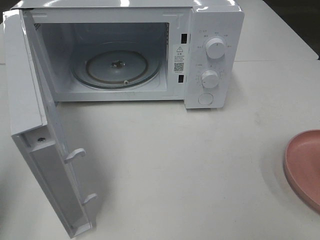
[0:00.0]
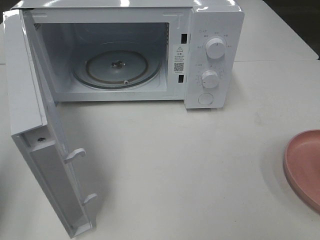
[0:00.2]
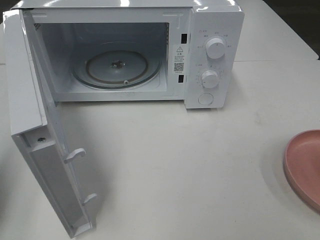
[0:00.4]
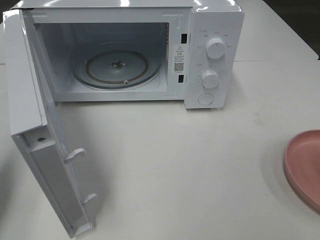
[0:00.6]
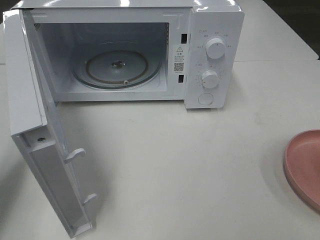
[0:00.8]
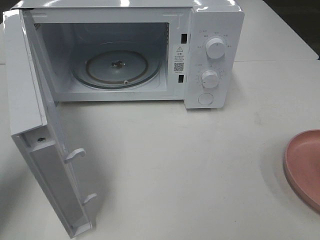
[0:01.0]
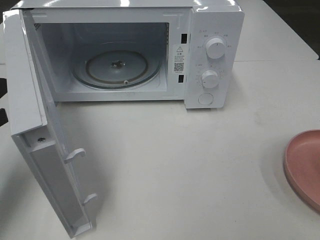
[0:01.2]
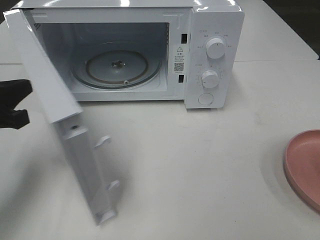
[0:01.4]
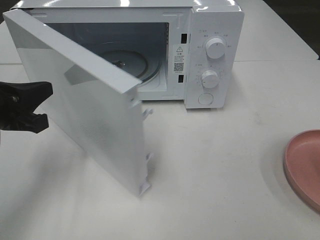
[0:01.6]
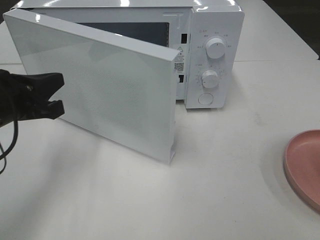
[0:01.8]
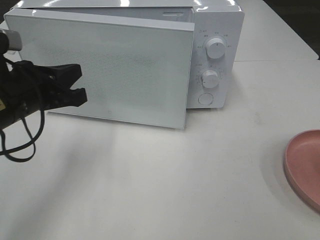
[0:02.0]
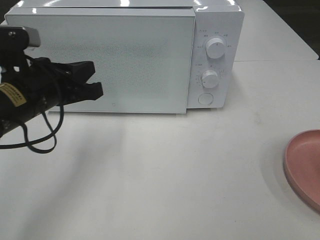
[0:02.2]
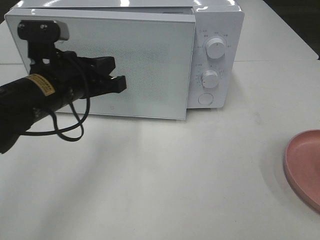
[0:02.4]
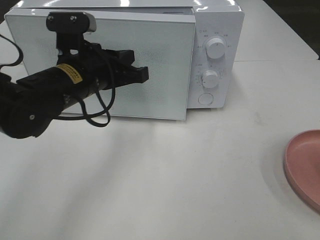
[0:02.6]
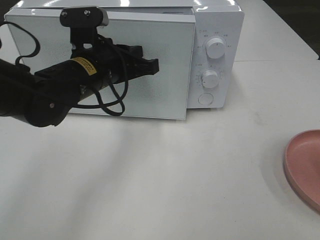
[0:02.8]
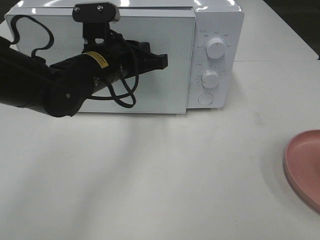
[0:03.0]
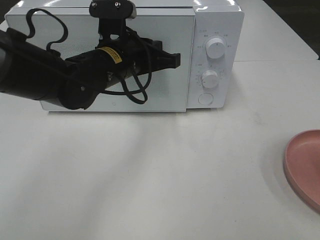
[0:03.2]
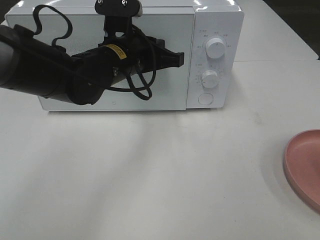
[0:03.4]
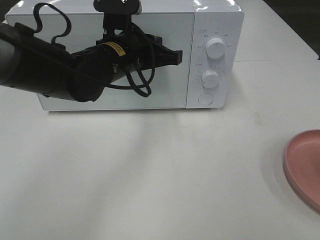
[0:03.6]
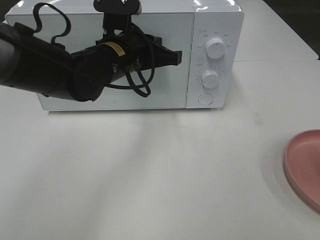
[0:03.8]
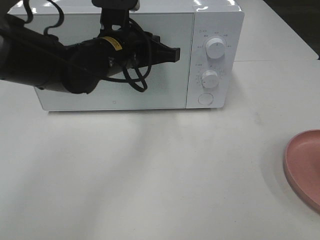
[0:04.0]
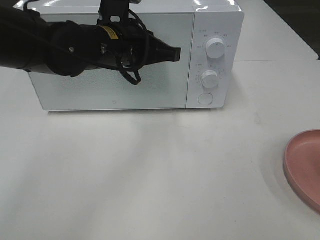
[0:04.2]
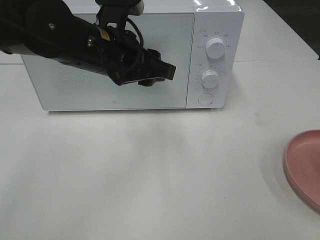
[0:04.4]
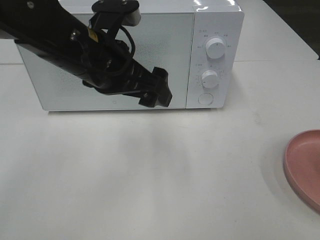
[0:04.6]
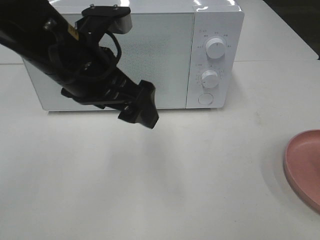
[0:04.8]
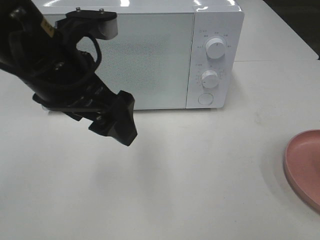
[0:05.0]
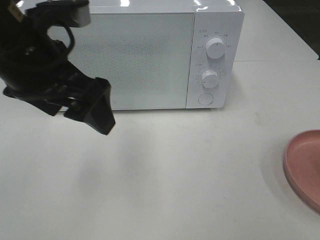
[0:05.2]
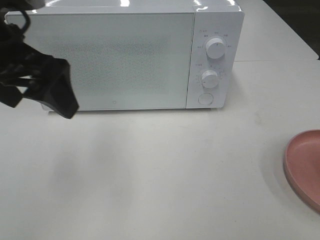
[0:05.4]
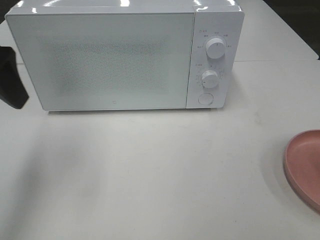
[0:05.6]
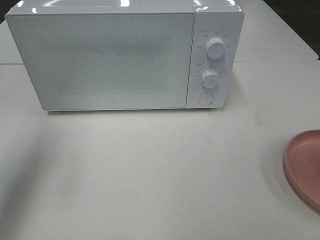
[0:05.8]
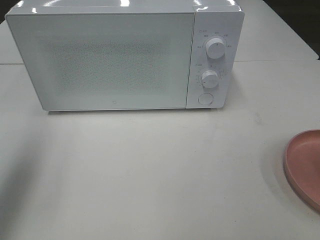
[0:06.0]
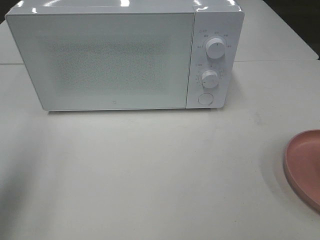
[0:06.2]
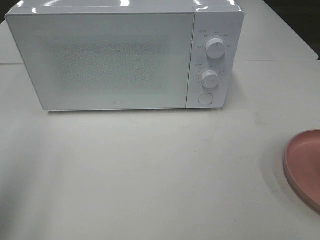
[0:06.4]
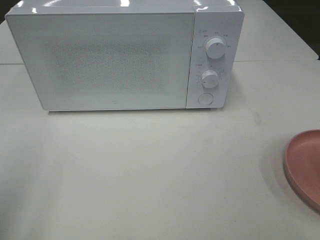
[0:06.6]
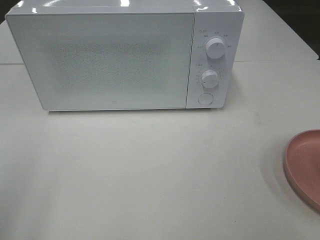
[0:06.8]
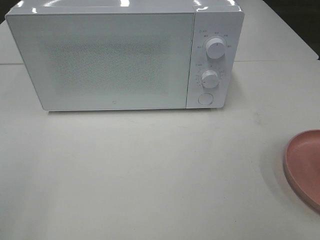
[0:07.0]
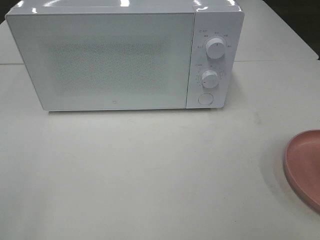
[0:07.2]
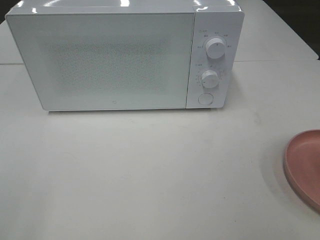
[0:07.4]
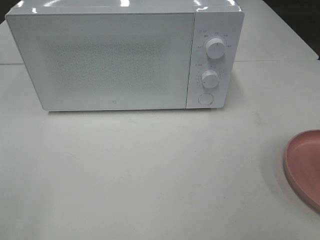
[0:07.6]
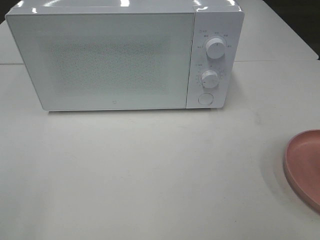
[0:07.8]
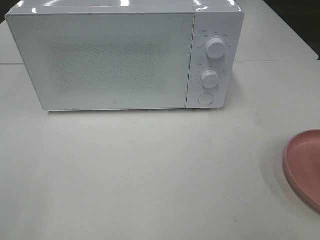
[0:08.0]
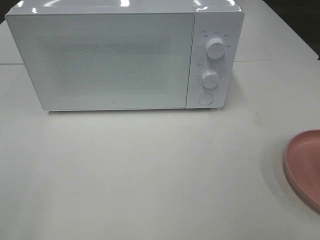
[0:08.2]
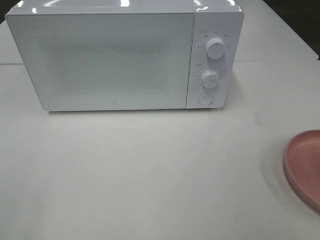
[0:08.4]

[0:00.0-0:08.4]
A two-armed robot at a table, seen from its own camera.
Task of the whole recording: Heat the burger.
Step, 0.0 to 4.0 s: Left hand: close the microwave door.
0.0 to 1.4 s: The left gripper shifts roughly 15 cm forward, downward and to the right.
1.4 to 2.8 s: The left gripper shifts about 20 cm to the right and forward.
4.2 to 5.6 s: The left gripper shifts roughly 20 cm to the left, upward and backward, and opens.
5.6 to 7.0 s: The left gripper travels backward by roughly 20 cm.

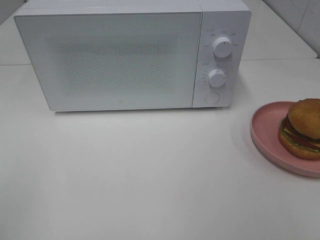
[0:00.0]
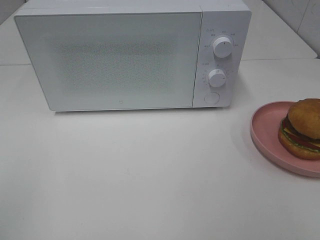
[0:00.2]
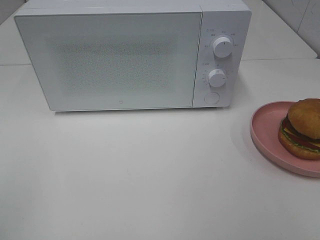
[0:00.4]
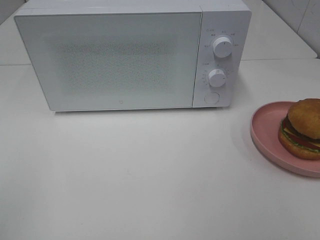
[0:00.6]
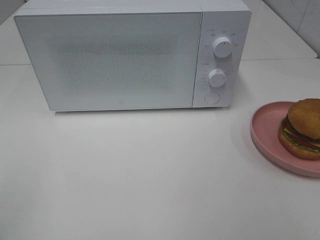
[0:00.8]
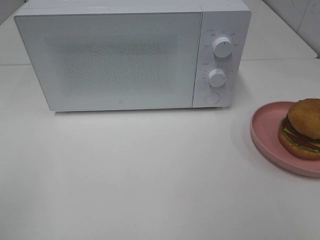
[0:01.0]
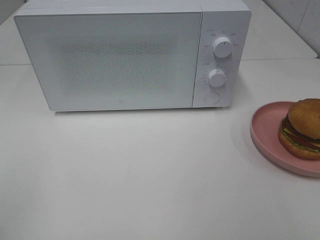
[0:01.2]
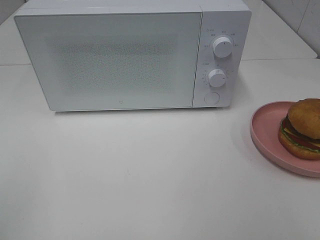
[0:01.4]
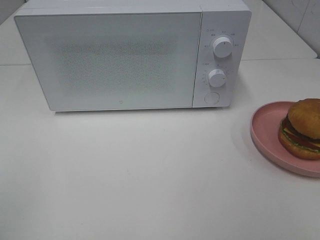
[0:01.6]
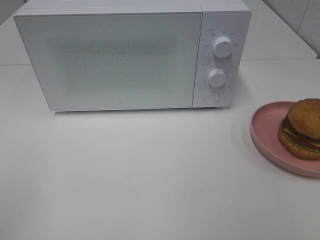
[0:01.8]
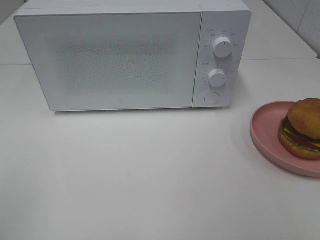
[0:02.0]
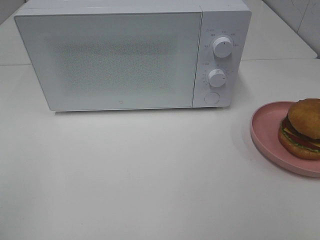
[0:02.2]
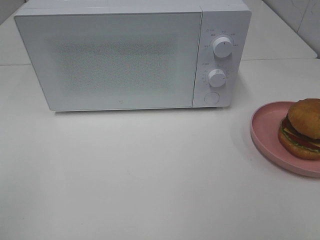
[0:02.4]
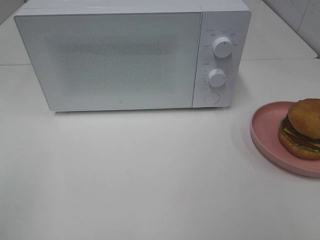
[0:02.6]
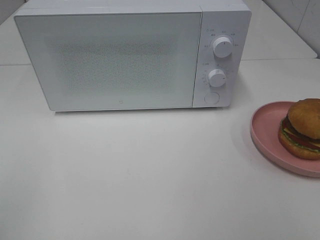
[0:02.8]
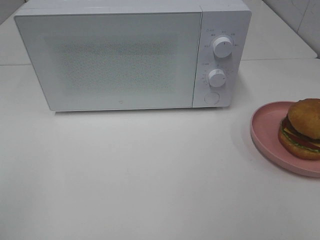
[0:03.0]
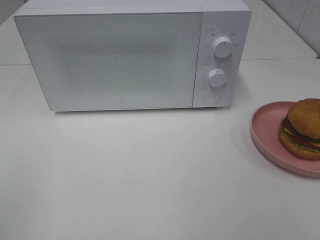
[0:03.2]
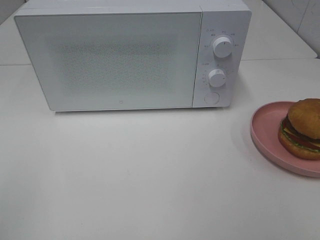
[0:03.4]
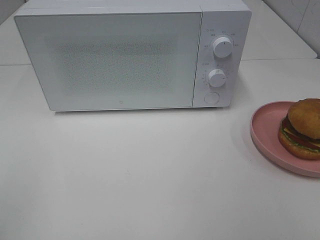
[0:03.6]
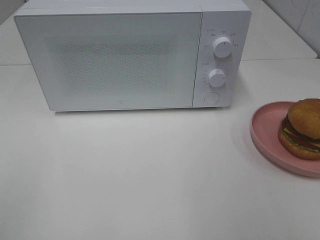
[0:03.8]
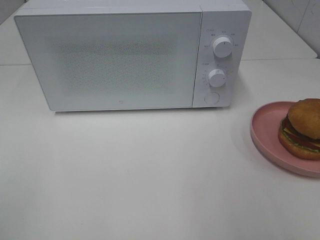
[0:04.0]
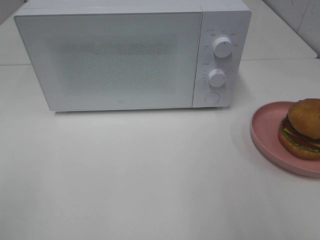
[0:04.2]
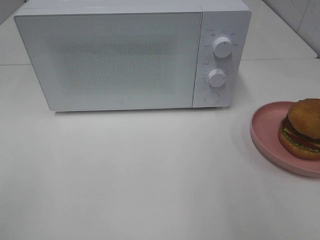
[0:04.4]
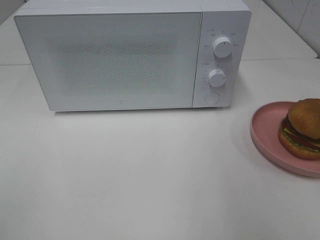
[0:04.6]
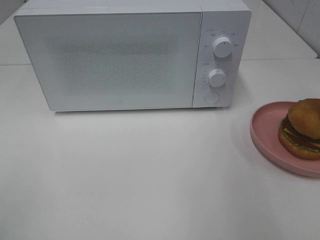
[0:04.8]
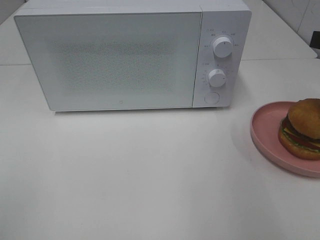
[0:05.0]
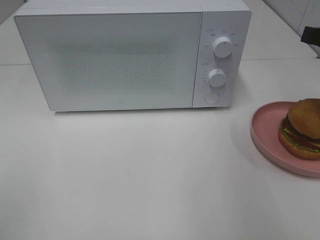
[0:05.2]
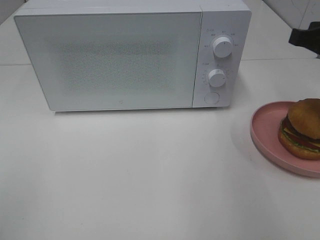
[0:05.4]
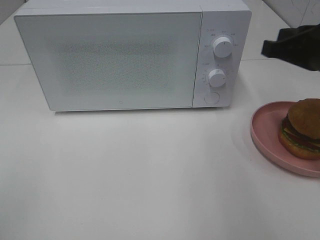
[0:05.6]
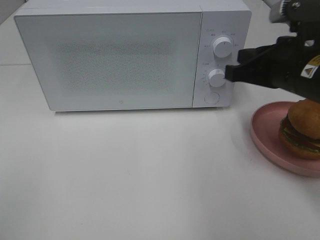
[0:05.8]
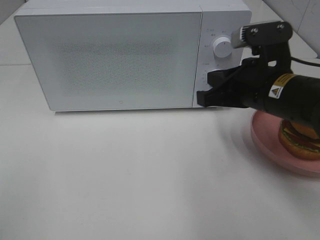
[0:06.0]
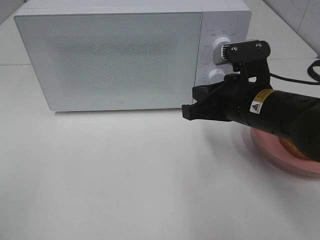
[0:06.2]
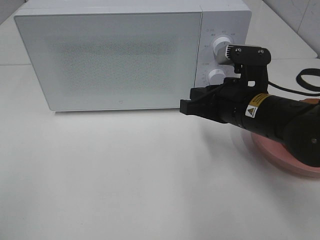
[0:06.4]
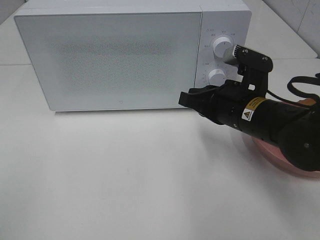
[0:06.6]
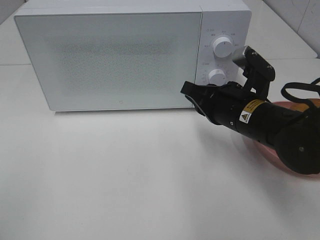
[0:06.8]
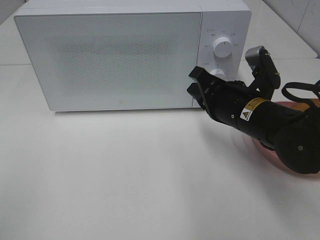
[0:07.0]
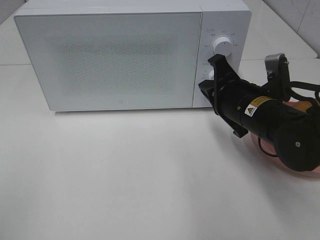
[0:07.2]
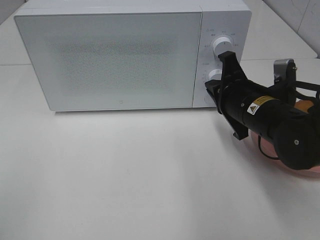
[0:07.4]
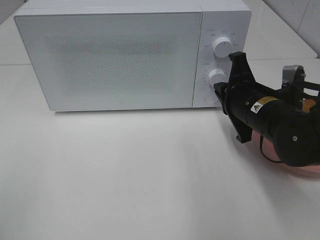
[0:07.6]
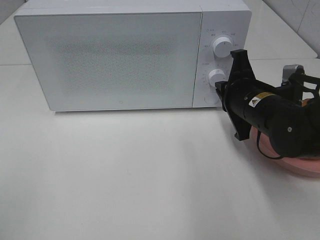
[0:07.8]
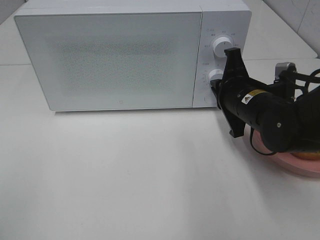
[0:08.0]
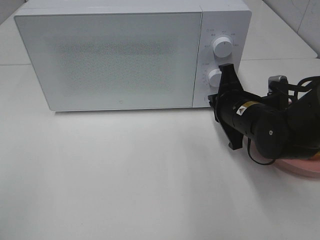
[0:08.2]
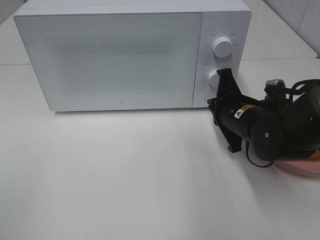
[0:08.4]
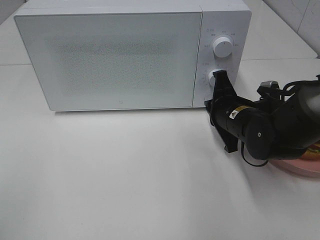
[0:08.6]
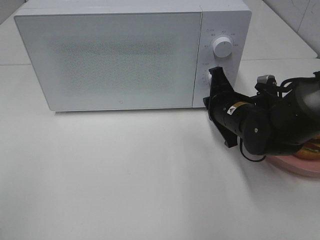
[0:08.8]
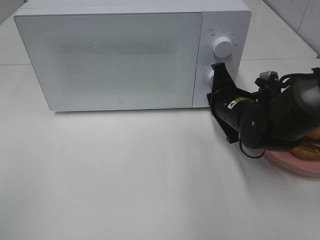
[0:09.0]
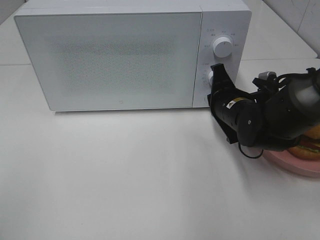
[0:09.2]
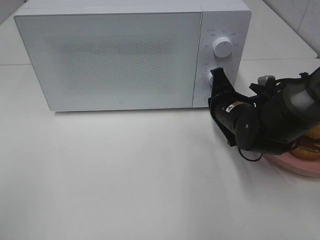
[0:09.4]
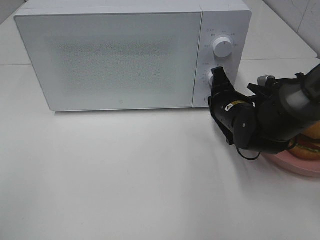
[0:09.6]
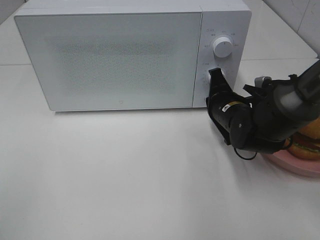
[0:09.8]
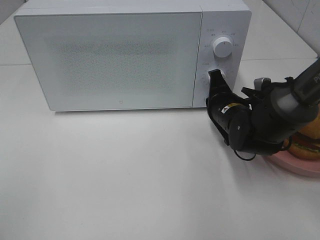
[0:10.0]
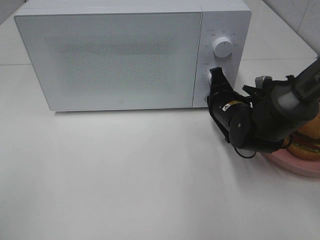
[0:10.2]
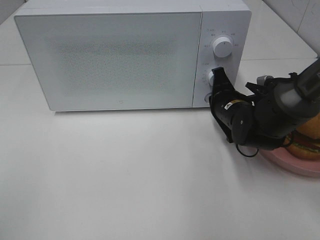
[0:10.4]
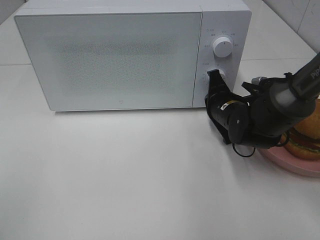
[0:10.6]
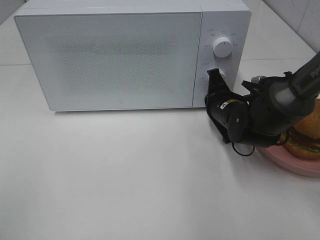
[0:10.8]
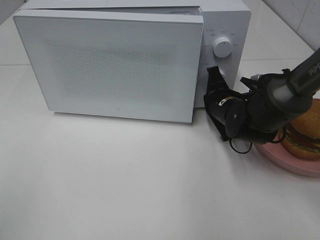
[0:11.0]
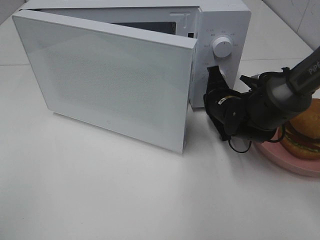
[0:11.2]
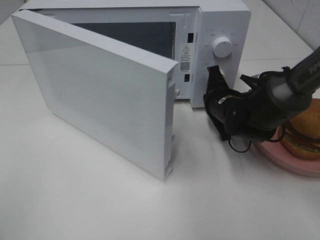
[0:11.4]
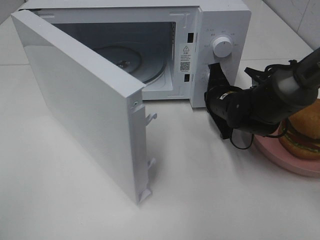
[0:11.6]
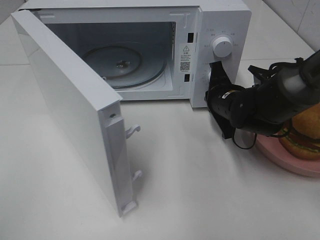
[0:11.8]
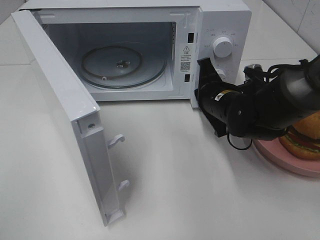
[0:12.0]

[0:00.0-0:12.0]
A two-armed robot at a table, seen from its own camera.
Task of the whole recording: Heat the burger.
Step, 0.0 to 11.8 s: Right hand: press the switch.
0.0 to 3.0 s: The two grippers keep their place.
4.4 to 6.0 s: The right gripper goes roughly 20 cm to the left, downward and forward, and closes.
6.0 to 7.6 s: The right gripper changes place by about 5 cm.
7.6 to 9.0 s: The right gripper changes place by about 5 cm.
9.0 to 10.4 s: The grippers stay close to where they were, moving slightly.

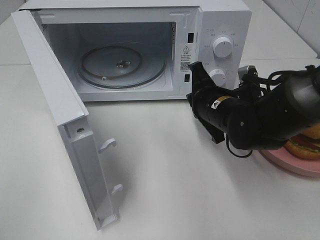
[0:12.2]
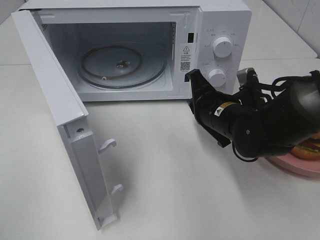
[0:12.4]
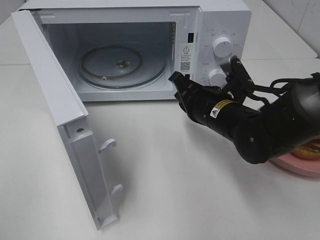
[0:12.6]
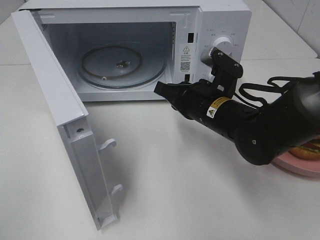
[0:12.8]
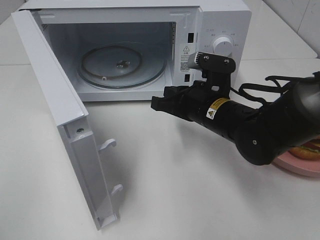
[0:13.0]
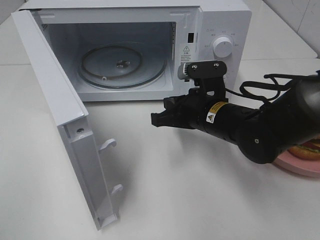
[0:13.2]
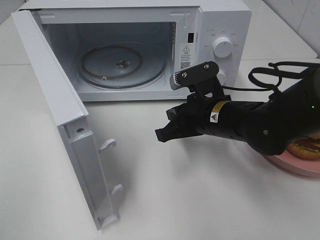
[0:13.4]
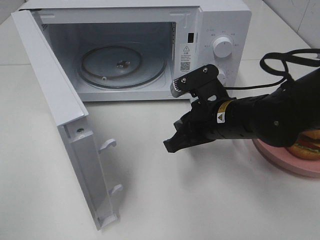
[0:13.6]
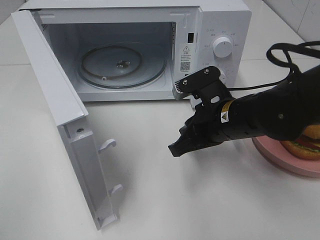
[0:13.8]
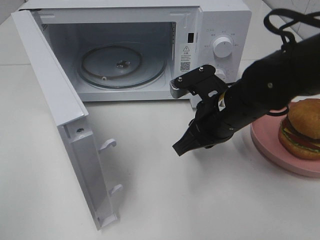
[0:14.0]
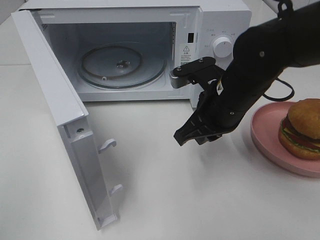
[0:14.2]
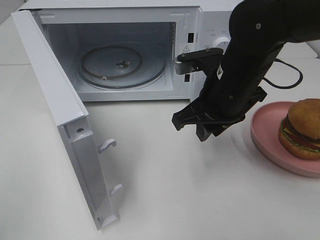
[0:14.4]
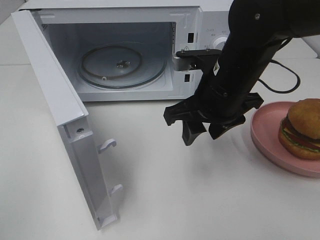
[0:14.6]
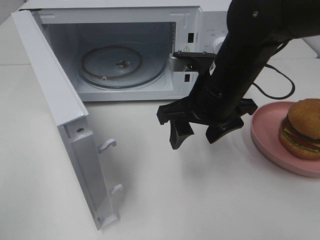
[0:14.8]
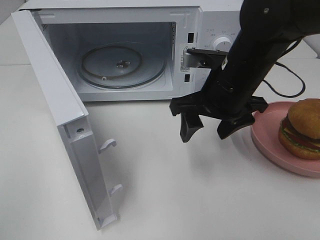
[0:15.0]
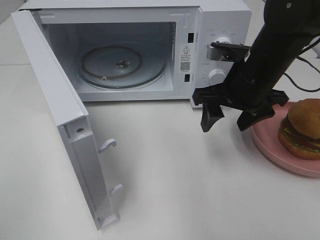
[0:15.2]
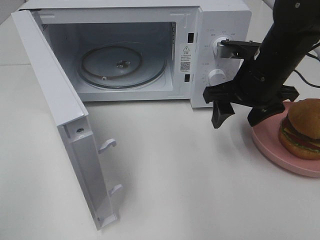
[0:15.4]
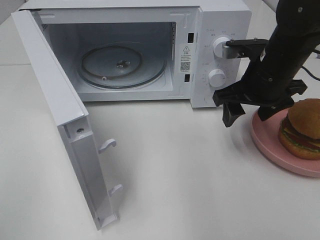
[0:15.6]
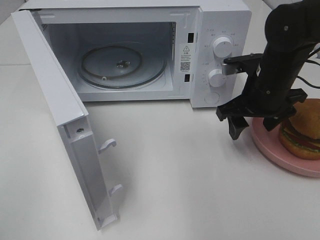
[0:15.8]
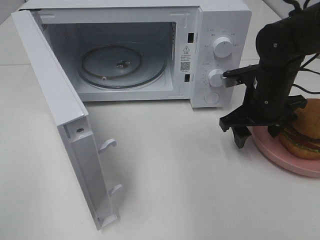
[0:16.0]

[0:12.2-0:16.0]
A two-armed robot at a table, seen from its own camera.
Task of the whole recording: Heat the burger.
13.4 to 14.8 s: The right gripper heads upward, covering some 5 cm, and opens up.
14.8 to 16.0 s: The right gripper heads to the right, forward and downward, covering approximately 15 cm.
